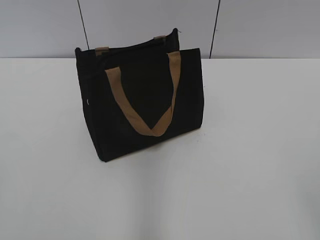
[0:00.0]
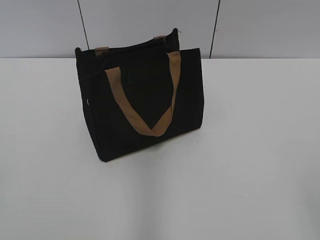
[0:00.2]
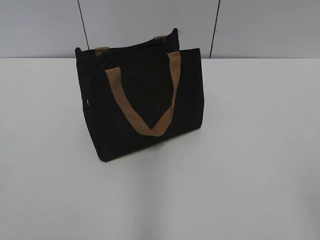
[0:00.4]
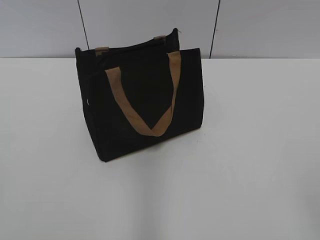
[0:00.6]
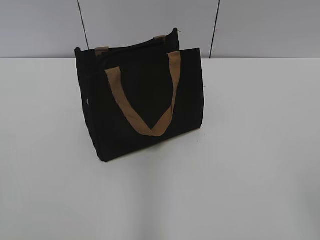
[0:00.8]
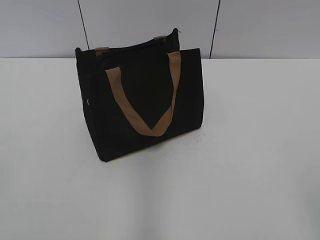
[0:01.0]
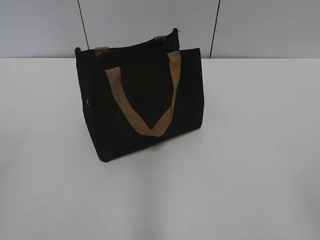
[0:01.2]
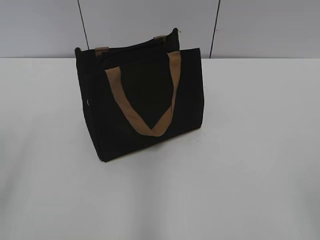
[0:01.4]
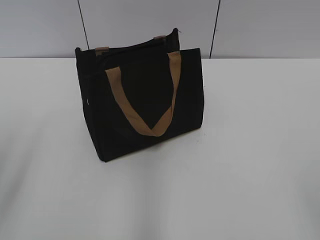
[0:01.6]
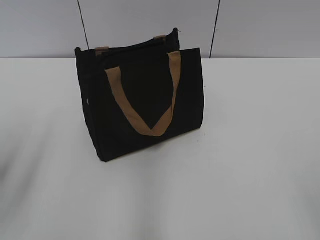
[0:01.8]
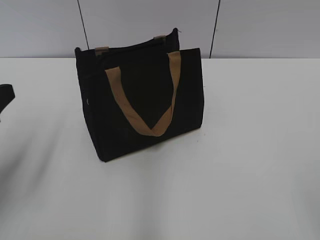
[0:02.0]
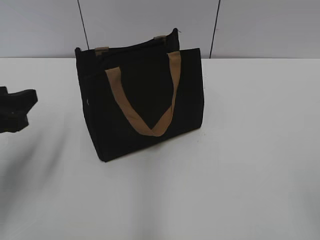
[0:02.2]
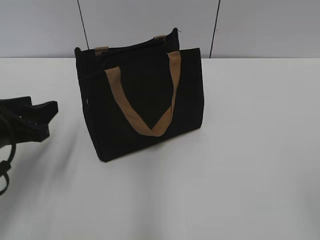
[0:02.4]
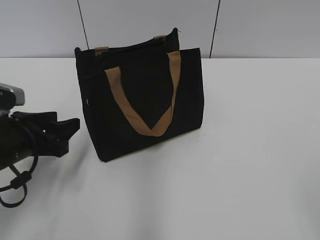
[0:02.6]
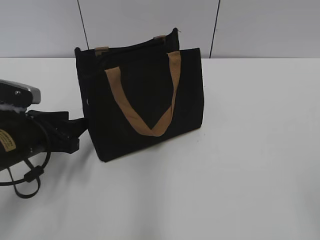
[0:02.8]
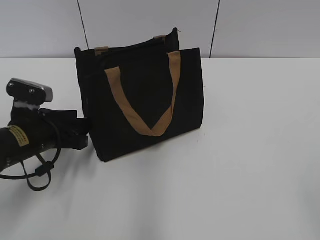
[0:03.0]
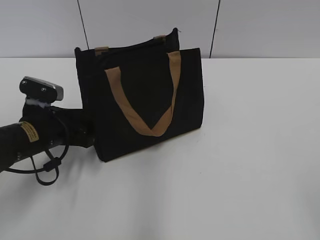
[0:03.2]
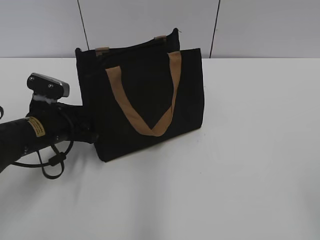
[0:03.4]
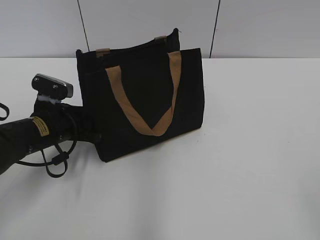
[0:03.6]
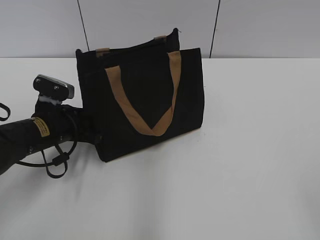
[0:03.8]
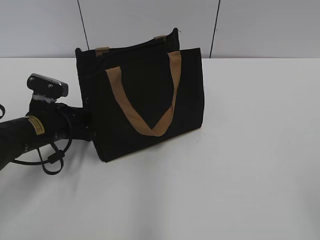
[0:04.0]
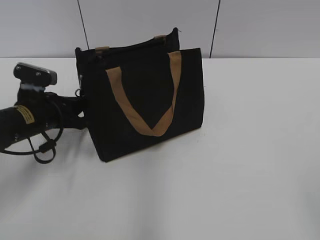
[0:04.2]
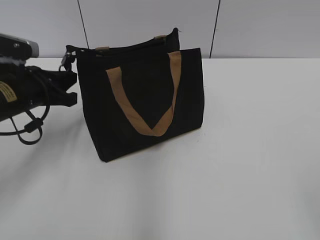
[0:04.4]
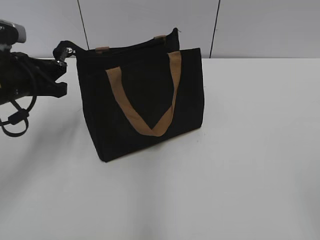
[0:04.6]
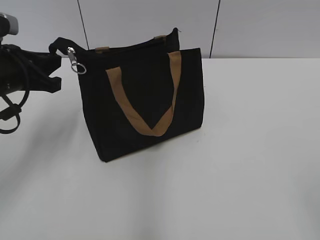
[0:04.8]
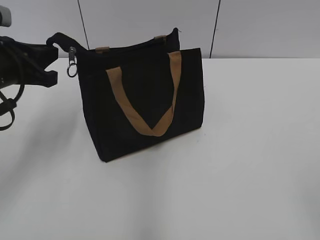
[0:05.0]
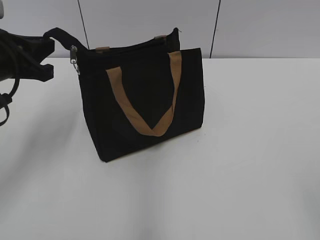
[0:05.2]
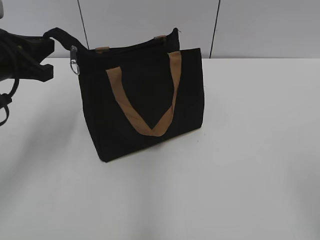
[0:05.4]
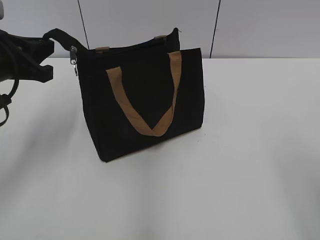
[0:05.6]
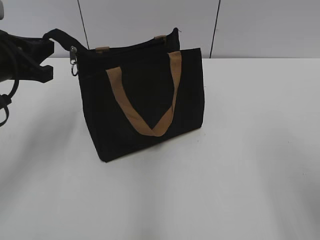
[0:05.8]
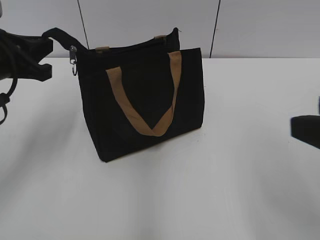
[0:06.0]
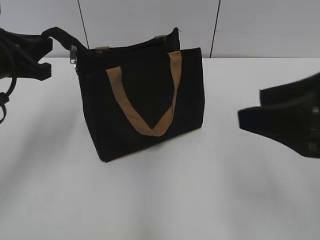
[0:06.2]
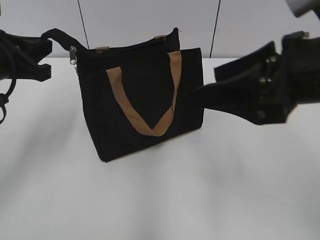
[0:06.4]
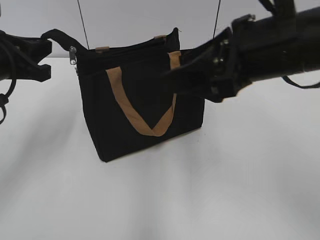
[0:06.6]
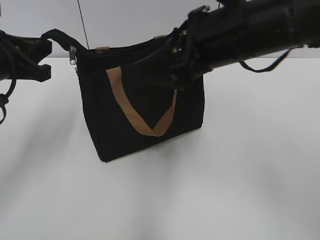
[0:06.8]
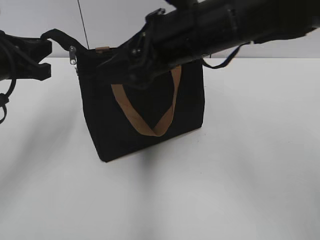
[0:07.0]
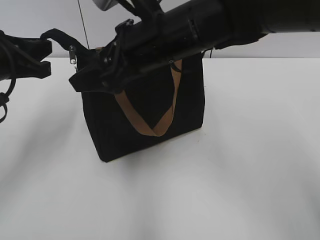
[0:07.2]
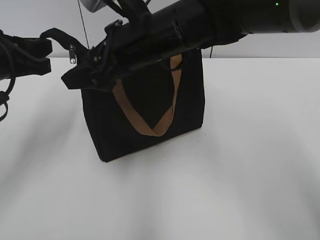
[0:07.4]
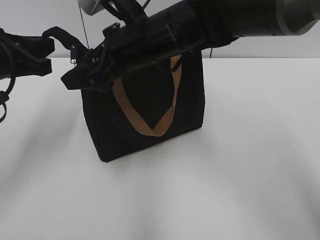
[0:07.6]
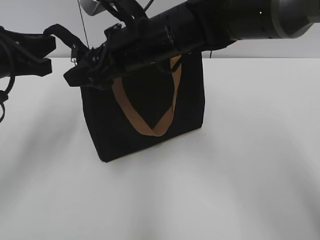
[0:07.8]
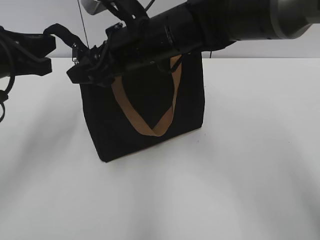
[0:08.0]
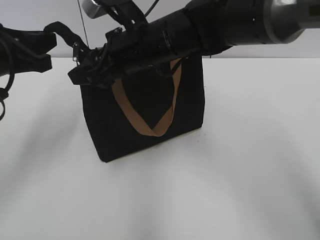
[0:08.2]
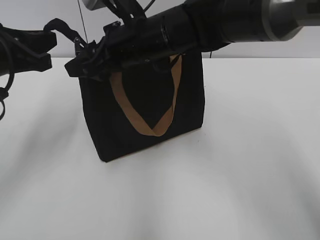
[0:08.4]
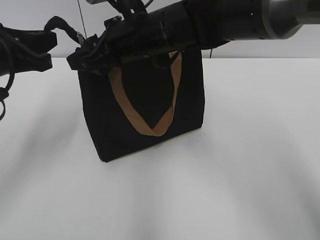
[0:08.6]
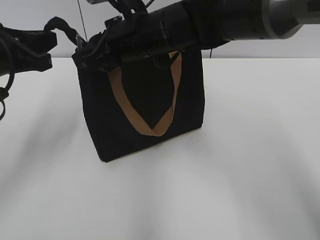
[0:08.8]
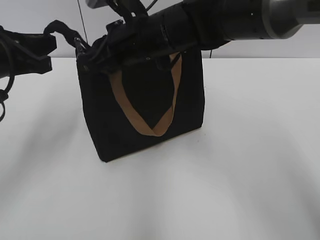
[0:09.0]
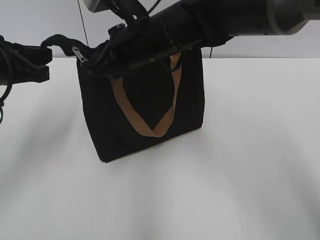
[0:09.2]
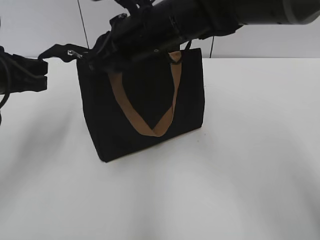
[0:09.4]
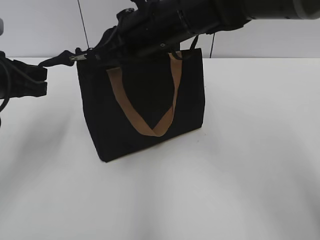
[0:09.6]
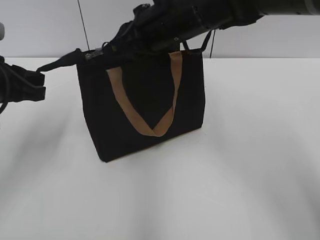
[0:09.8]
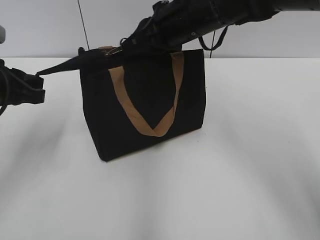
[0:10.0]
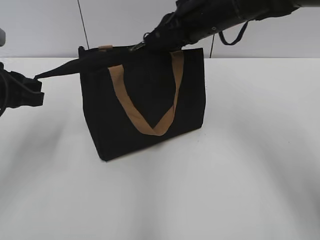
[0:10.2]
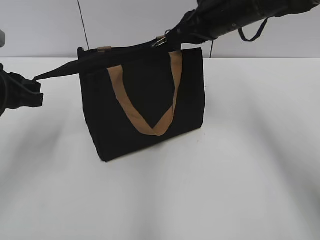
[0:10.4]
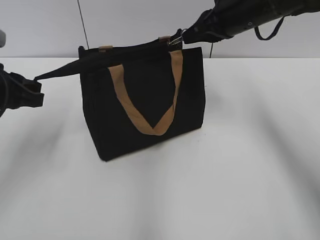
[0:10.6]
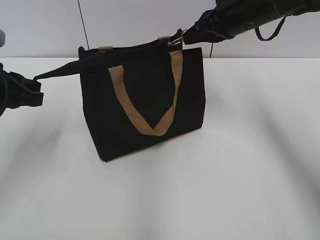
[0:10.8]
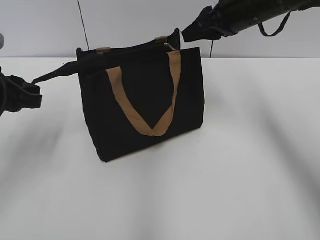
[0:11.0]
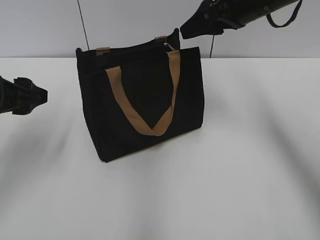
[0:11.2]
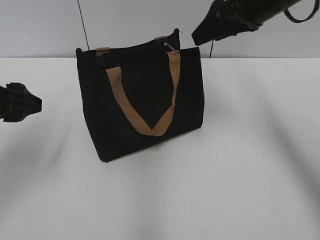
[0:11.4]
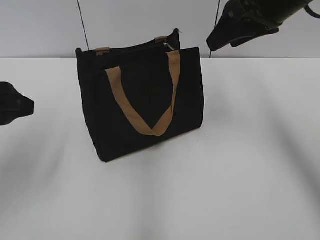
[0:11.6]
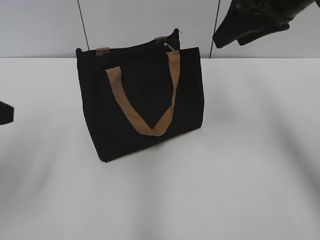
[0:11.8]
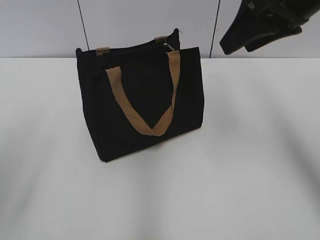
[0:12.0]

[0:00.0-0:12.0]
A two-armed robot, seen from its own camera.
Step, 0:00.0 to 0:10.8: Zip up the bag with your right hand.
0:01.6 to 0:03.0: The left gripper heads downward, forward and to the right, covering some 25 cm.
0:03.0 to 0:04.4: The left gripper shifts by some 5 cm, and closes up.
0:04.4 to 0:06.0: The left gripper goes about 10 cm upward. The right gripper is displaced forward by roughly 10 cm.
0:06.0 to 0:07.6: The right gripper goes about 35 cm to the left and forward.
0:07.6 to 0:09.0: The right gripper closes.
0:09.0 to 0:10.4: The right gripper is displaced to the right by roughly 10 cm.
0:10.4 to 0:12.0: The right gripper travels upward, to the right and backward by about 10 cm, and opens. The left gripper travels backward and upward by some 10 cm, and opens.

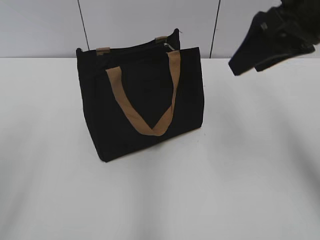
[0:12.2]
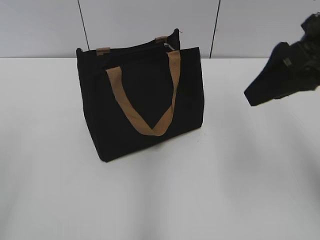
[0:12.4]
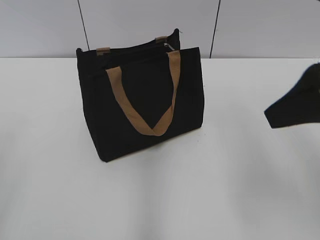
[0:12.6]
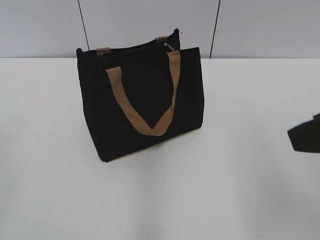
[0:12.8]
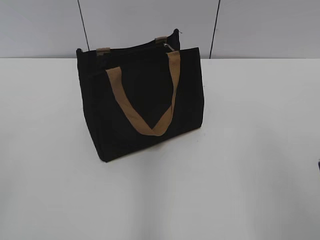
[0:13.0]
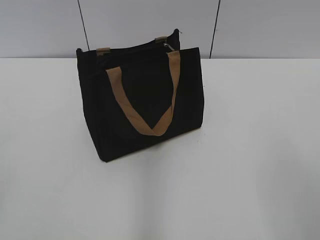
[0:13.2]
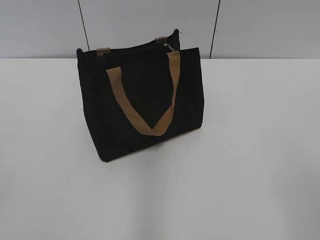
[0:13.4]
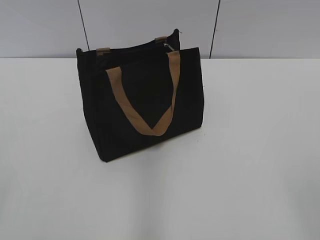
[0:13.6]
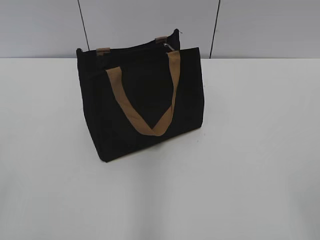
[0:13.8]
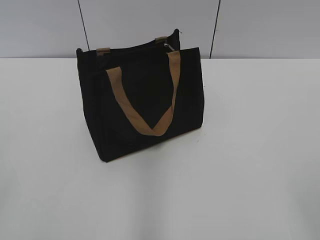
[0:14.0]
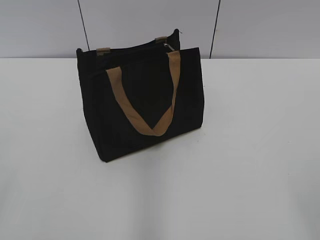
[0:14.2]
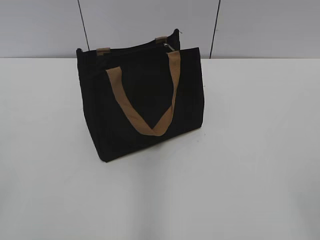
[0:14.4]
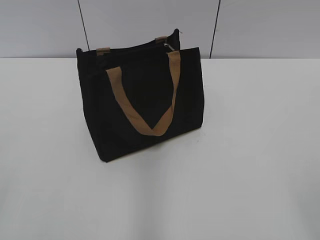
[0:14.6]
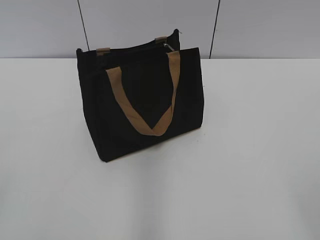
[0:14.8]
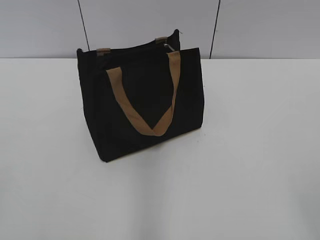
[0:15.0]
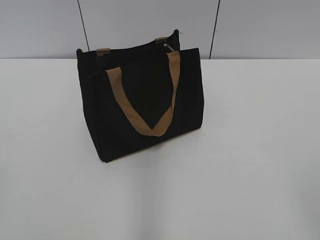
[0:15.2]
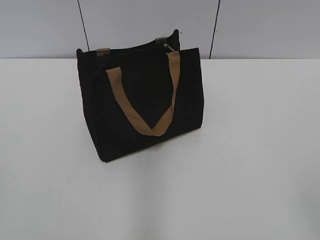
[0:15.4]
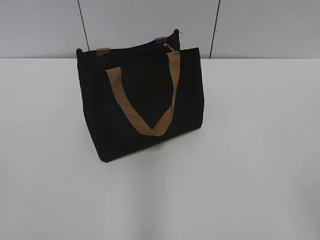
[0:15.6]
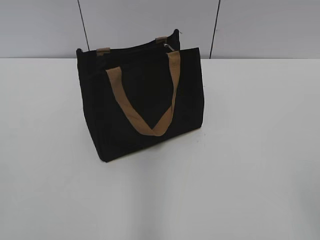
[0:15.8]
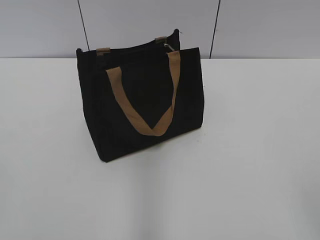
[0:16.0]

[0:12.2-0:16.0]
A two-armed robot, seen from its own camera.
0:12.2 to 0:13.4: The right gripper moves backward, some 25 cm.

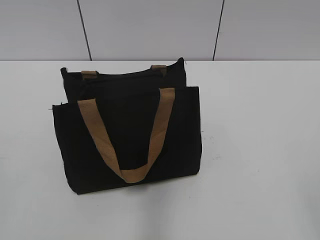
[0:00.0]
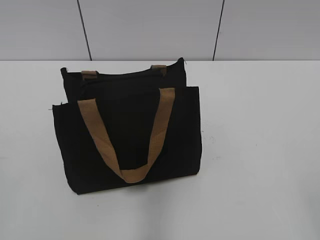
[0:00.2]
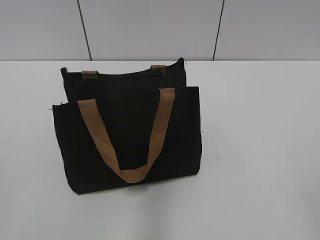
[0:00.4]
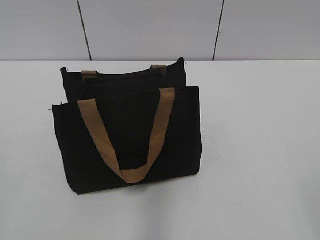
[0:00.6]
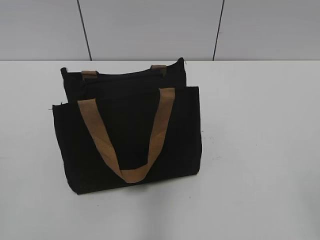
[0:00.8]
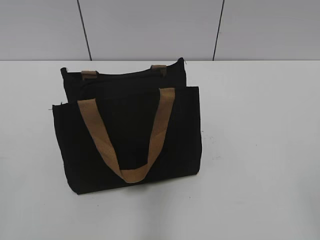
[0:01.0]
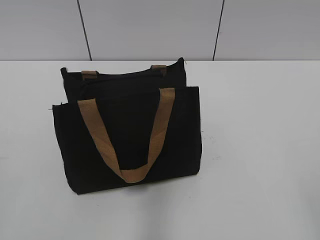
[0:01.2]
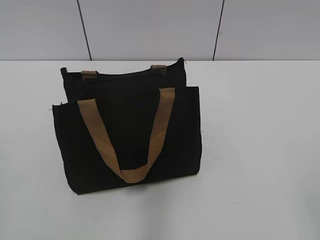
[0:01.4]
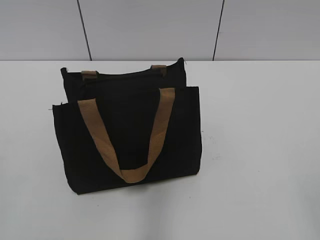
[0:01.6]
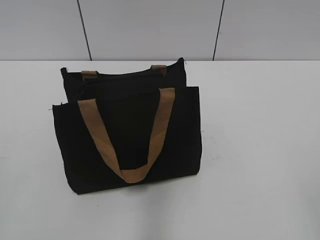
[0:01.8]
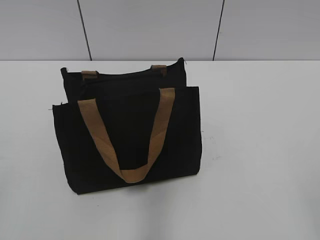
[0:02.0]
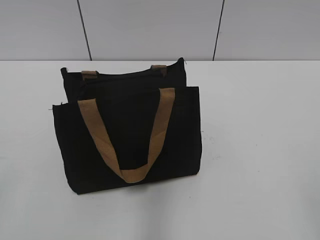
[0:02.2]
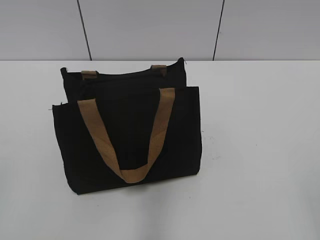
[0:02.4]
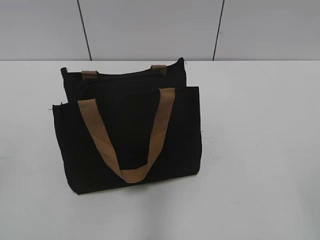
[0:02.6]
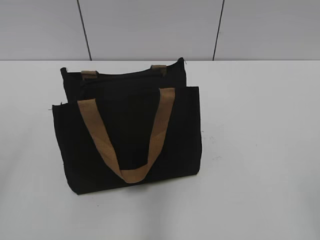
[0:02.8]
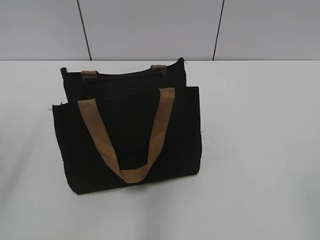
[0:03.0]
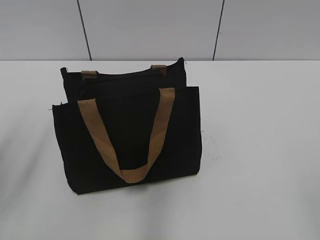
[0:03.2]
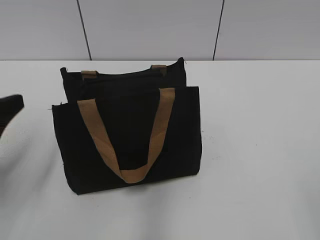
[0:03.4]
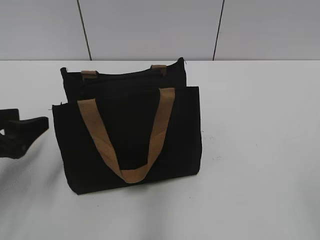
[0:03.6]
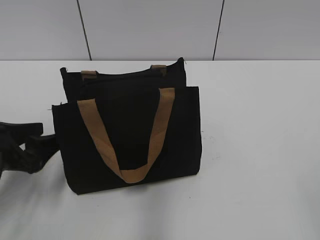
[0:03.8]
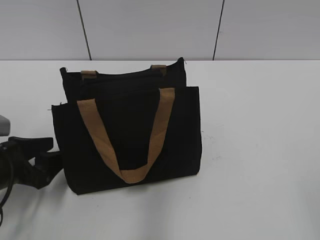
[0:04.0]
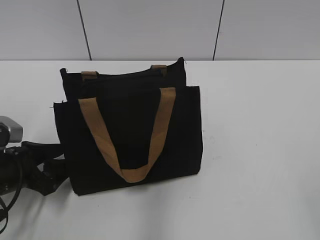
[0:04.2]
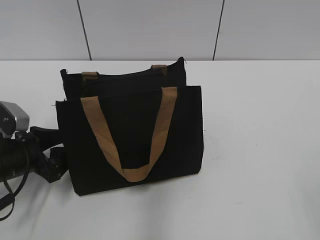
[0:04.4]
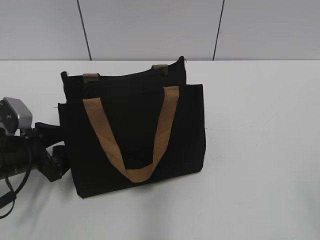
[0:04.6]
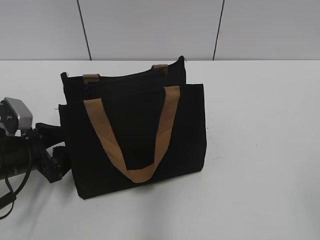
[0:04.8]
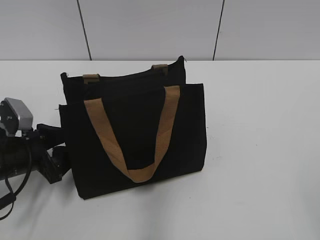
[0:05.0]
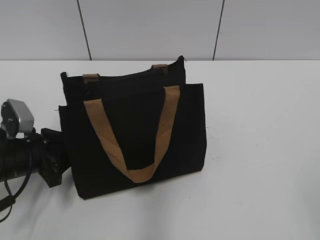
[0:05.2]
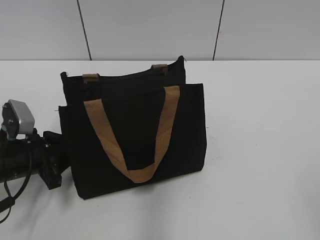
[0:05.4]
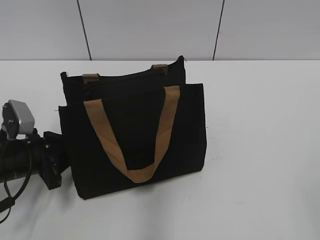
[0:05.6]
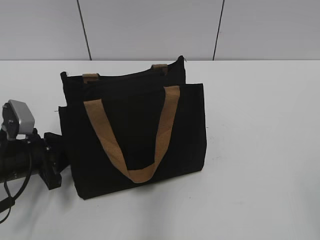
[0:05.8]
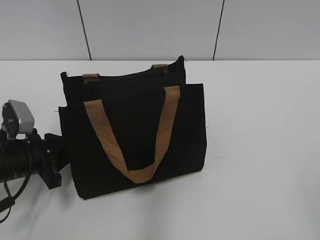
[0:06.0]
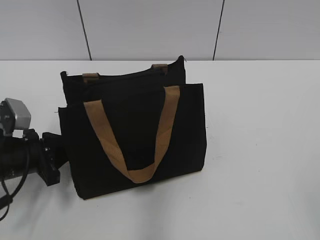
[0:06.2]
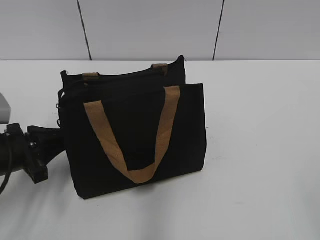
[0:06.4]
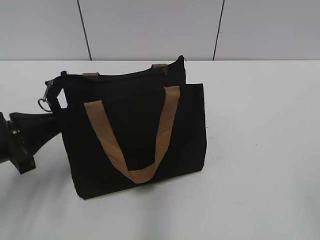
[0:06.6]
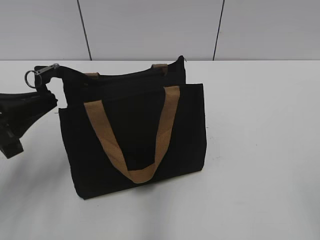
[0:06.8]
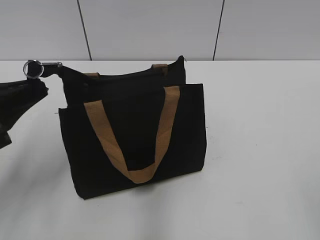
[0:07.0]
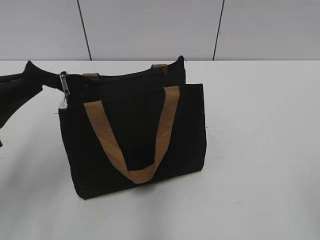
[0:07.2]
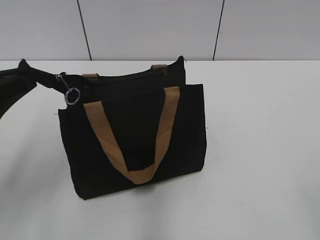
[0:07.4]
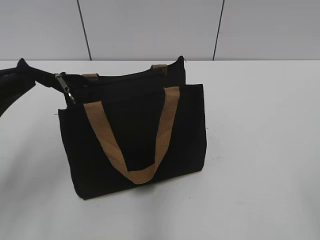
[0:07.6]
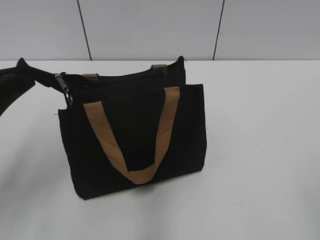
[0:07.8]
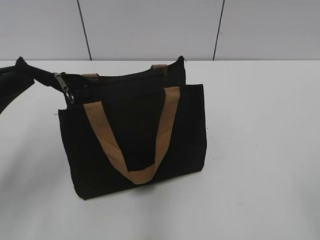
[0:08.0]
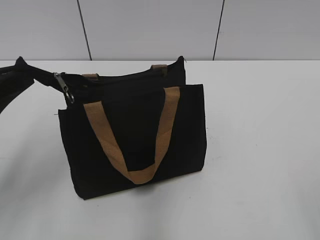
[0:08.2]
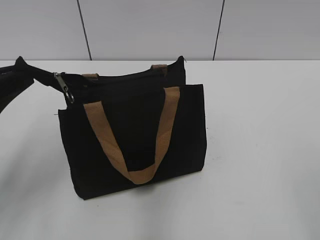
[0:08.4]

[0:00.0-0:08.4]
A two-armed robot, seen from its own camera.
0:02.8 to 0:04.2: The left gripper heads downward and forward, covering roughly 30 cm.
0:04.2 to 0:05.6: The left gripper closes up.
0:05.6 to 0:07.0: The left gripper shifts some 15 cm upward and backward.
0:07.0 to 0:08.4: There are only small adjustments of the grippers.
